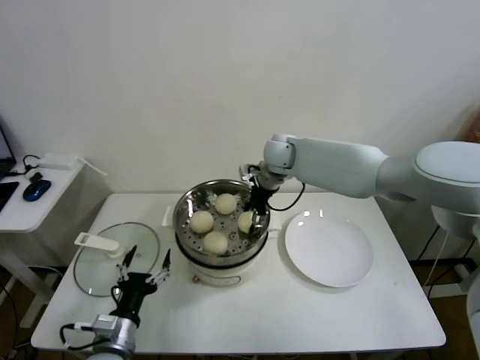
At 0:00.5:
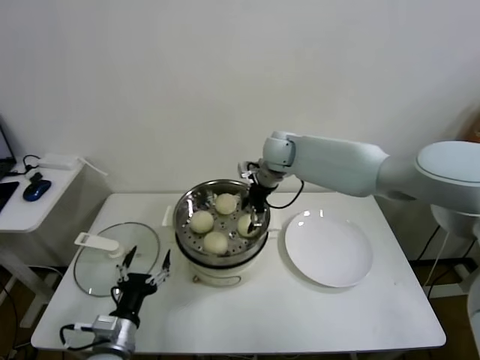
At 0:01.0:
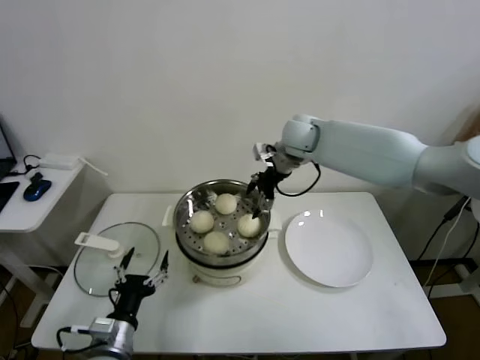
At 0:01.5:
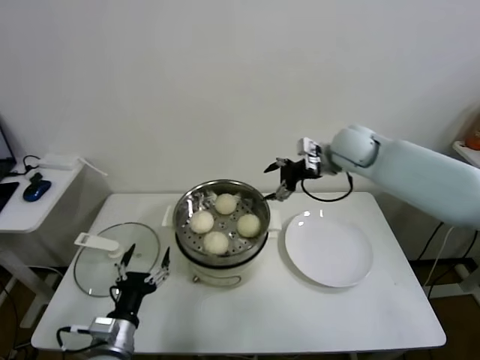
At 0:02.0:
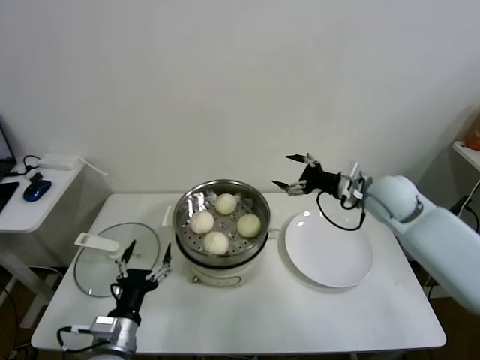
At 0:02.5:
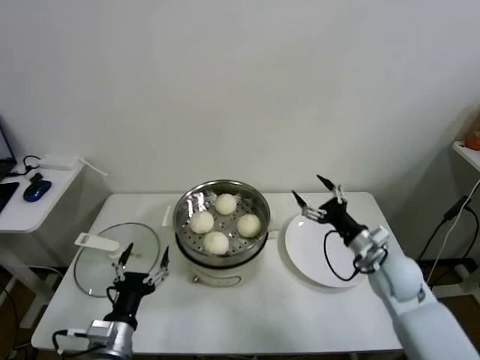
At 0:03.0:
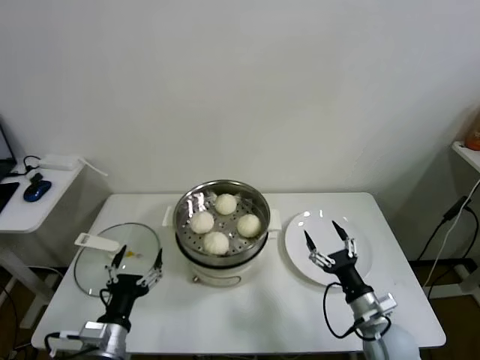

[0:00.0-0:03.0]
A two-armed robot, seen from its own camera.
Task of the whole recording: take steamed baozi put them in steamer.
0:00.0 to 0:01.5: The right gripper heads to the right, covering roughly 15 cm, and opens its fingers.
0:01.5 to 0:03.0: The right gripper heads backward and downward, covering approximately 40 cm.

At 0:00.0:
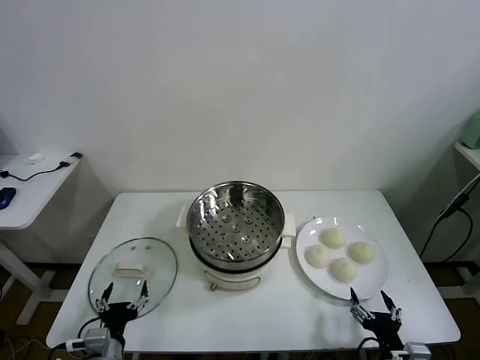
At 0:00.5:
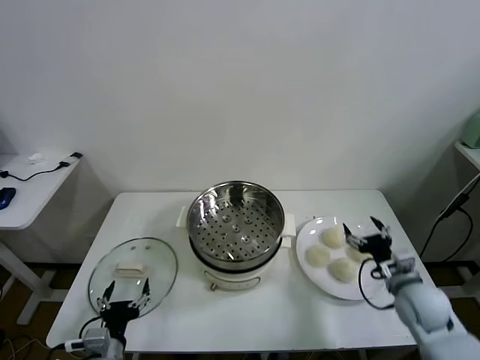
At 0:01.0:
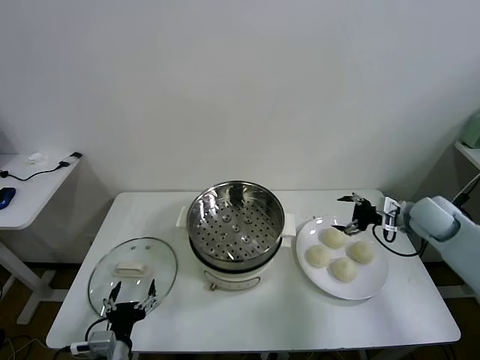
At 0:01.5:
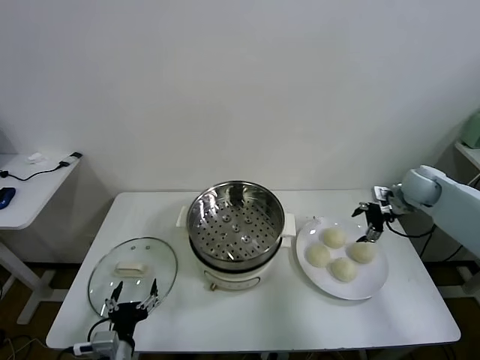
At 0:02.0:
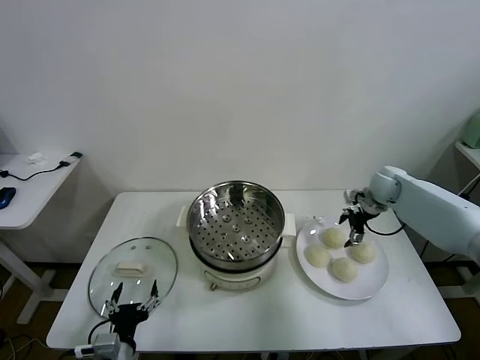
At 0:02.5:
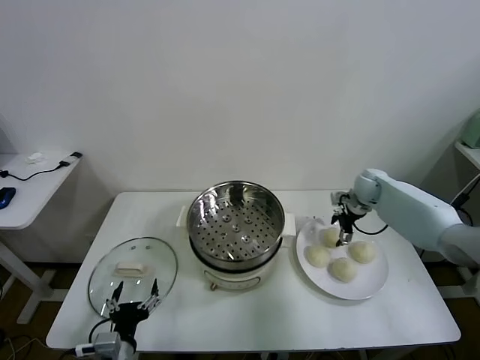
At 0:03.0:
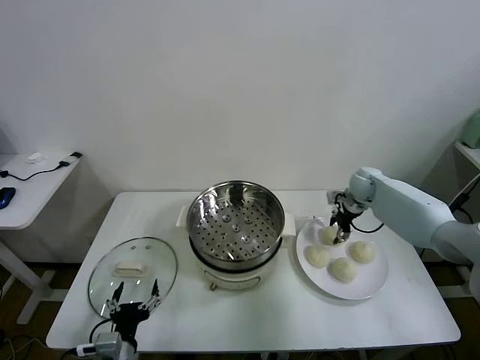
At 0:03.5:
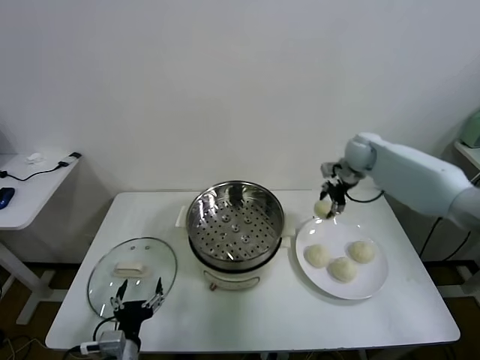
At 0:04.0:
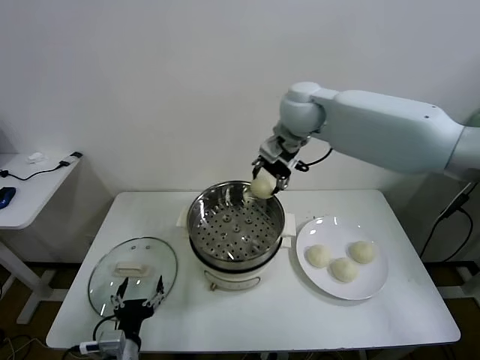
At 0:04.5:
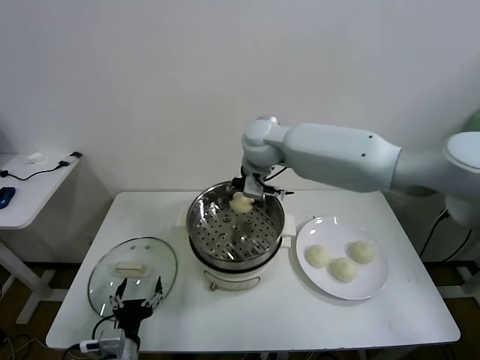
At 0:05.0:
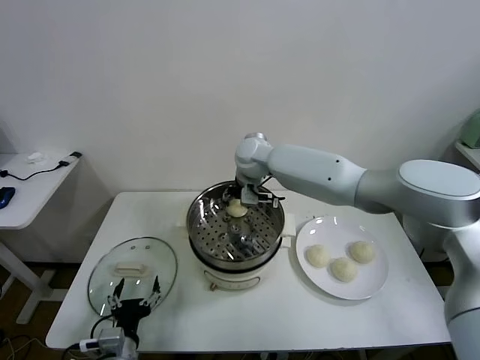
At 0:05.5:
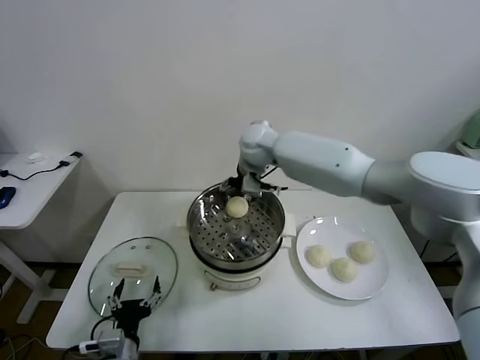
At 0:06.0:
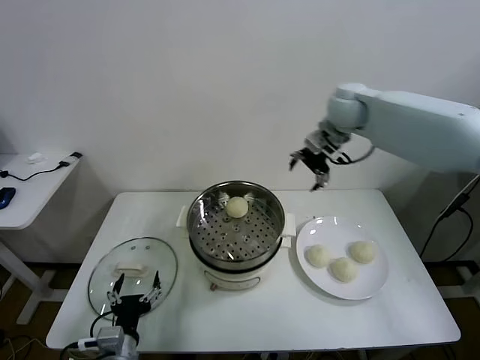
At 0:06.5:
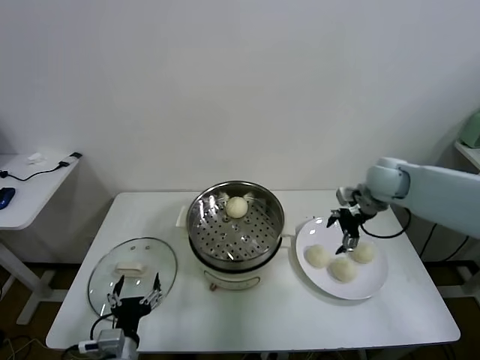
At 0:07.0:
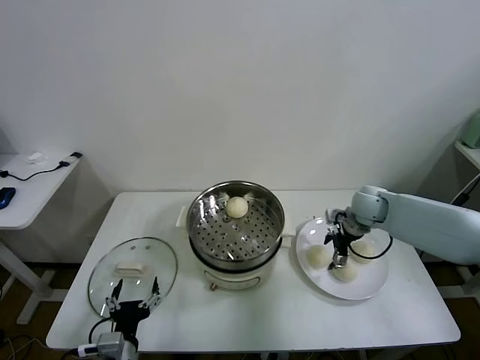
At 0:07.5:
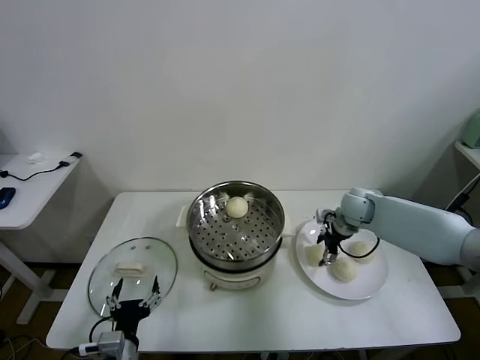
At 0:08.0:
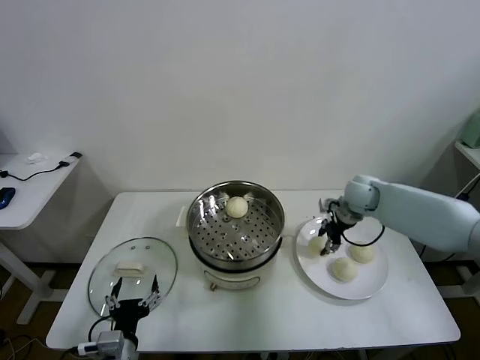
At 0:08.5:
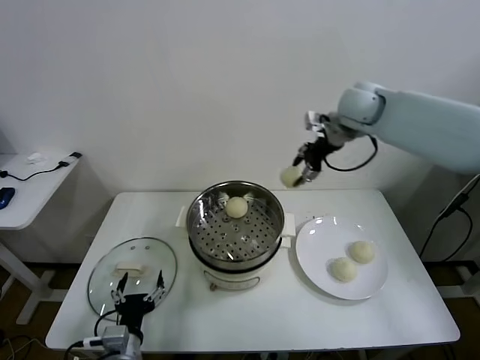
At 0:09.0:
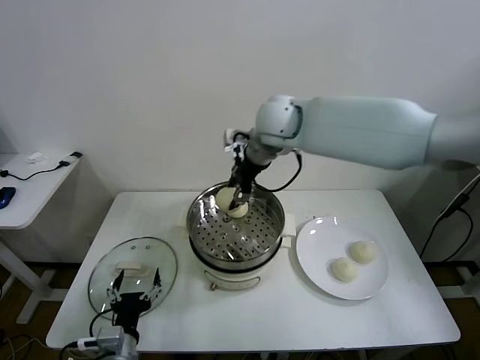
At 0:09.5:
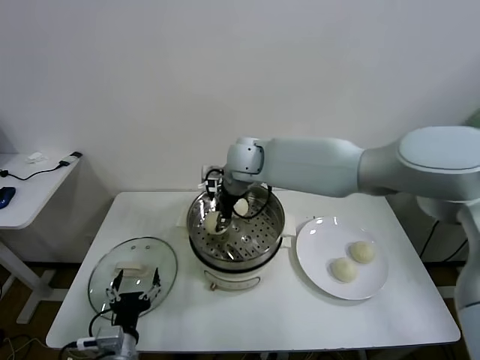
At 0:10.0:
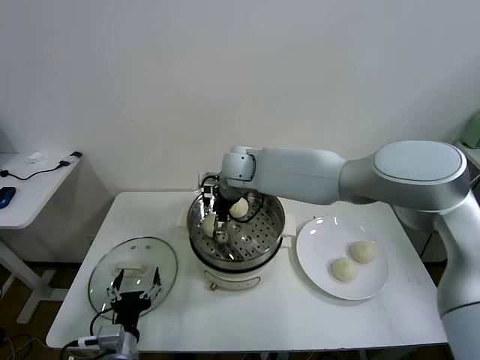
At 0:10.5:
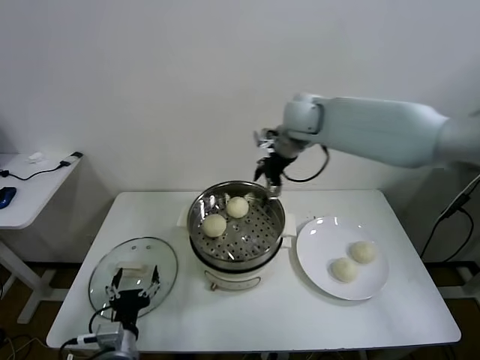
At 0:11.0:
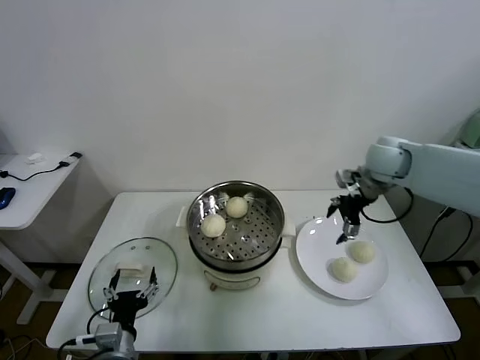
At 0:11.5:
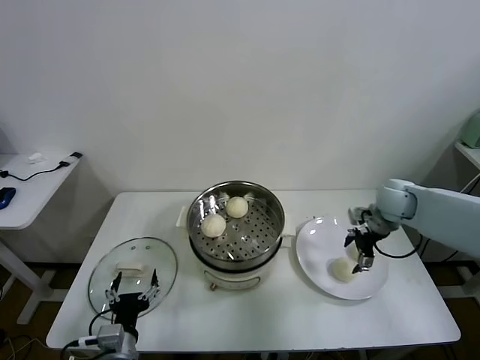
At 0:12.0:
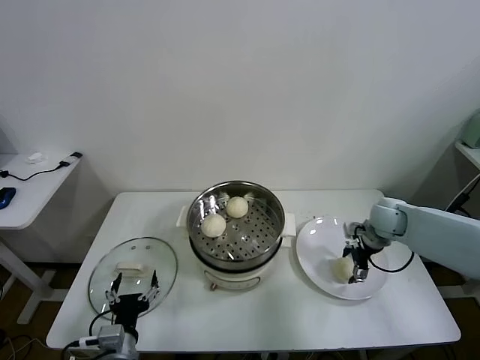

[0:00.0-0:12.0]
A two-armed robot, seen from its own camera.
Task of the whole recording: take steamed baozi put them in steamer.
Step, 0:00.0 to 0:02.5: Grasp the baozi in the plate with right gripper.
Step, 0:03.5 to 0:05.0: Place the baozi on the steamer with right gripper.
Step, 0:05.5 to 0:07.5: Grasp the baozi in the plate with right gripper.
Step, 0:08.0 to 0:10.0: Place the baozi on the steamer with right gripper.
0:02.0 to 0:04.0: The right gripper goes approximately 35 cm to the left and upward, and closes its fingers.
0:04.0 to 0:06.0: The right gripper is displaced to the right by some 15 cm, and opens.
0:06.0 to 0:08.0: The right gripper shifts approximately 20 cm downward, and closes.
0:08.0 to 0:10.0: The right gripper goes about 30 cm to the left, and opens up.
0:10.0 to 0:12.0: The right gripper moves to the right, about 35 cm.

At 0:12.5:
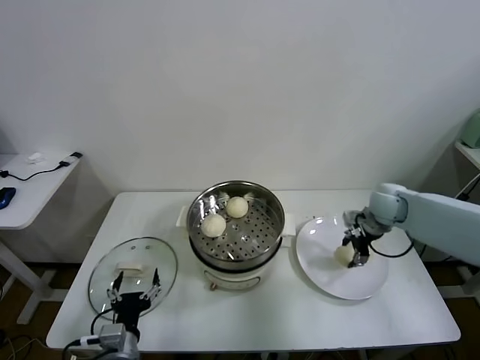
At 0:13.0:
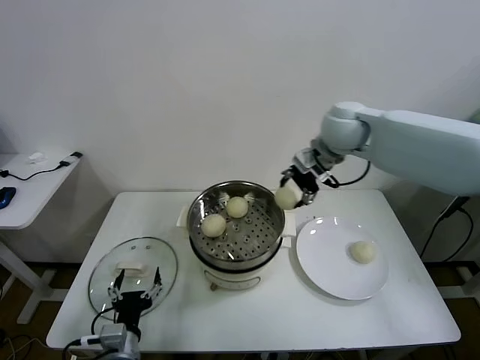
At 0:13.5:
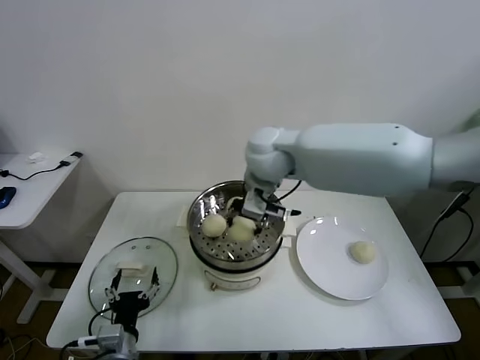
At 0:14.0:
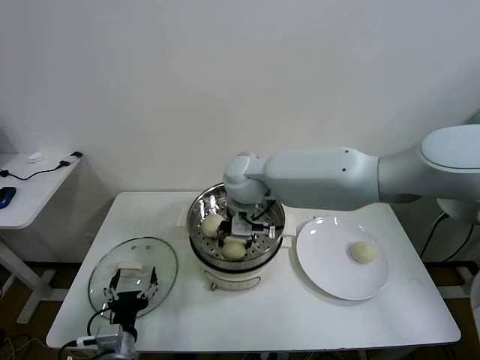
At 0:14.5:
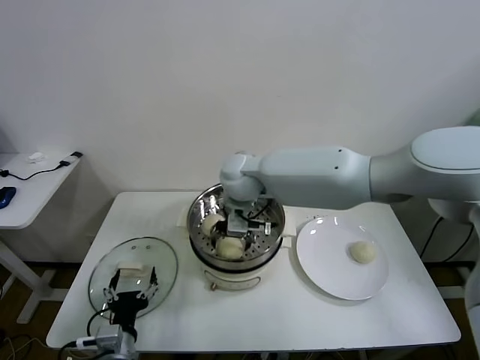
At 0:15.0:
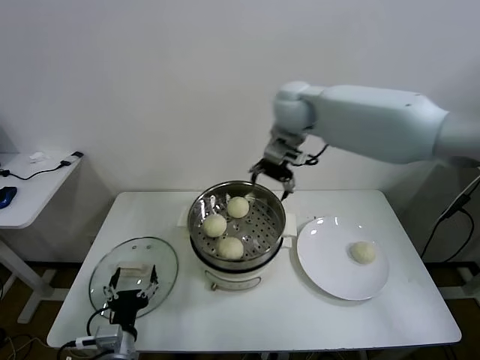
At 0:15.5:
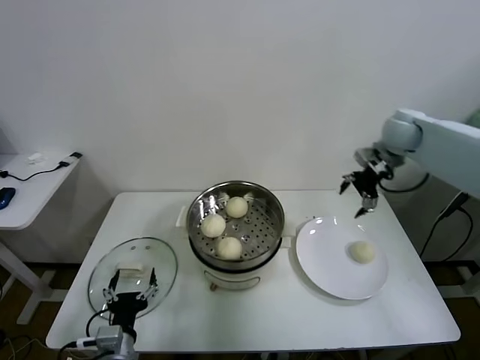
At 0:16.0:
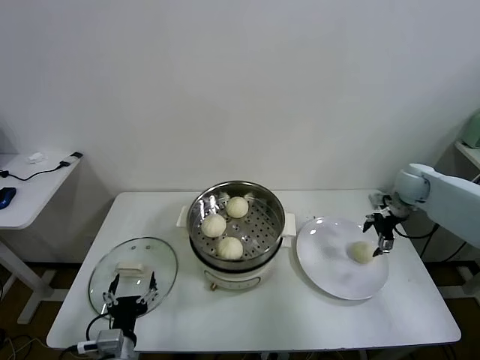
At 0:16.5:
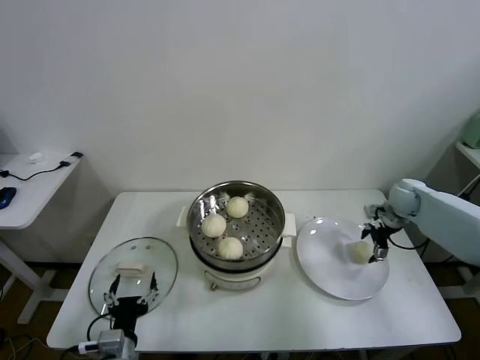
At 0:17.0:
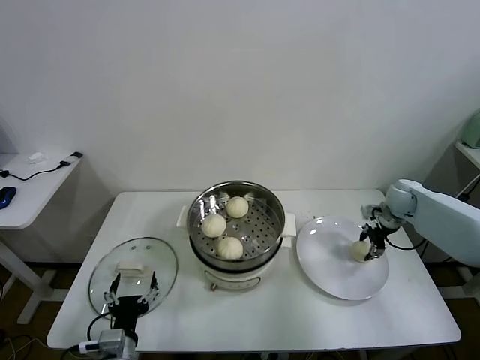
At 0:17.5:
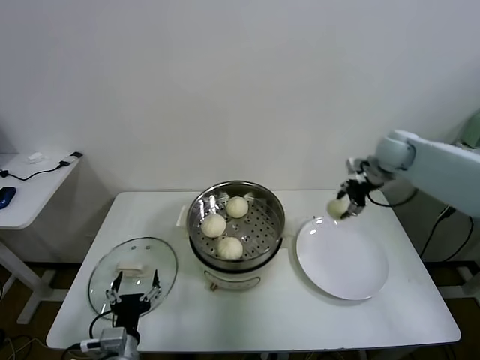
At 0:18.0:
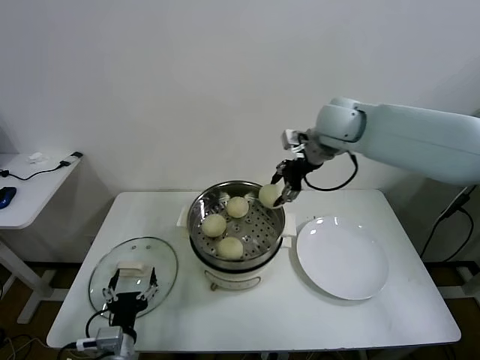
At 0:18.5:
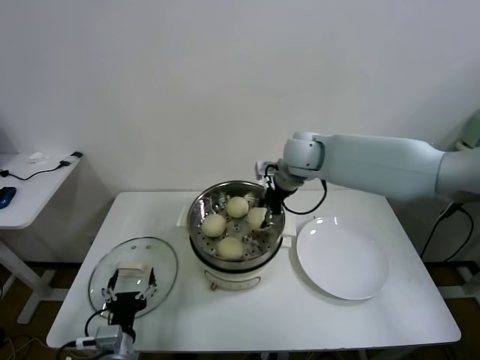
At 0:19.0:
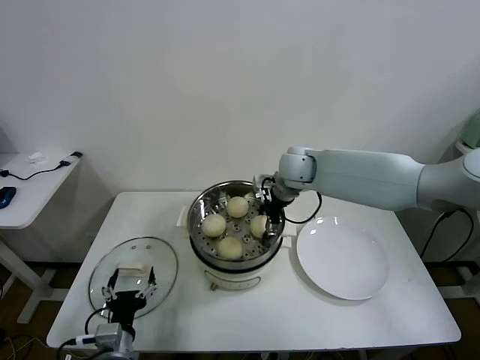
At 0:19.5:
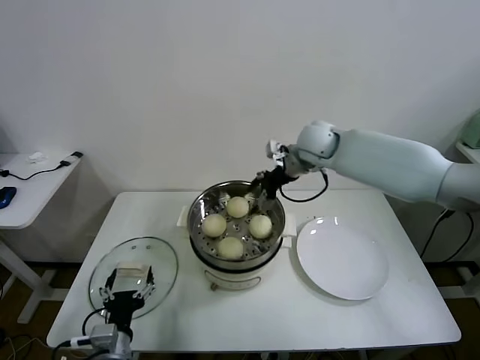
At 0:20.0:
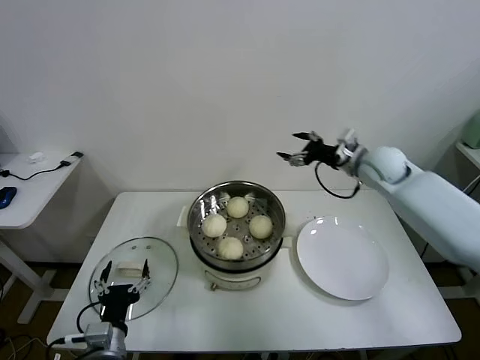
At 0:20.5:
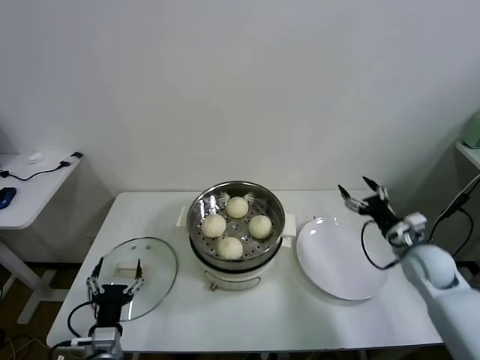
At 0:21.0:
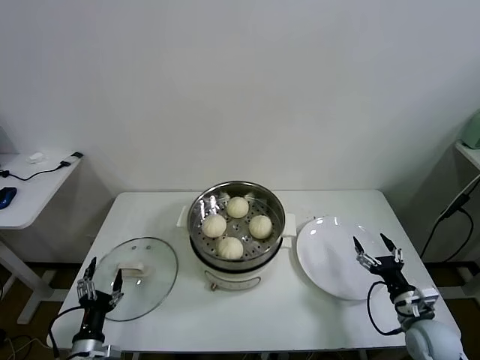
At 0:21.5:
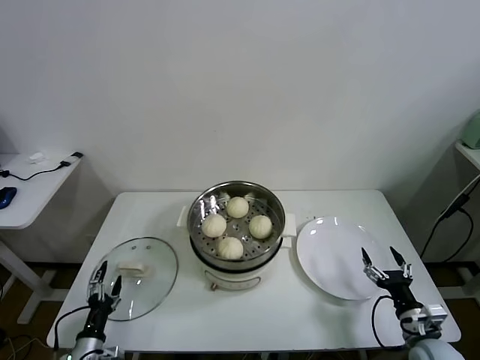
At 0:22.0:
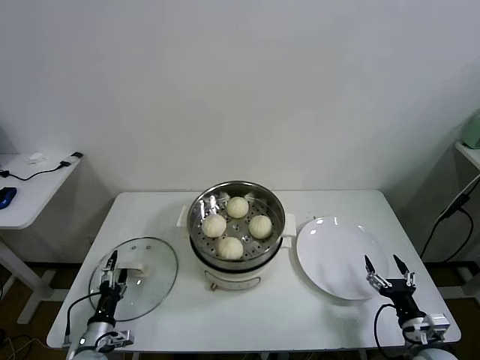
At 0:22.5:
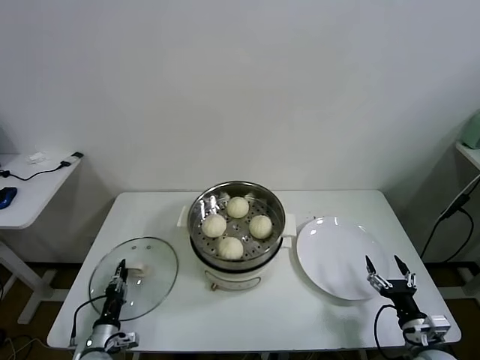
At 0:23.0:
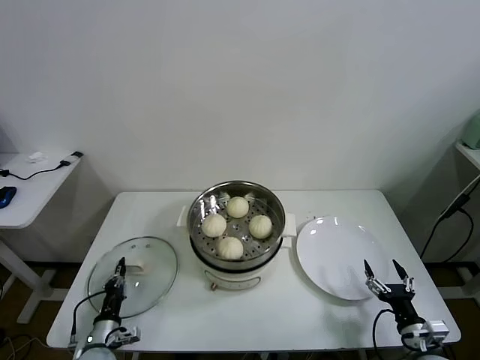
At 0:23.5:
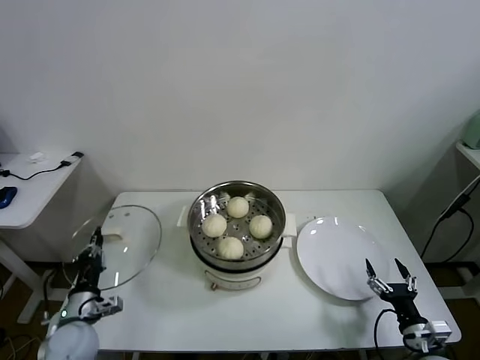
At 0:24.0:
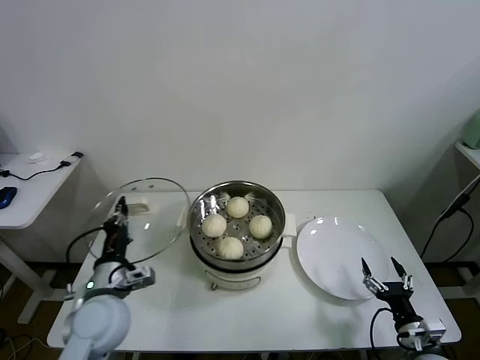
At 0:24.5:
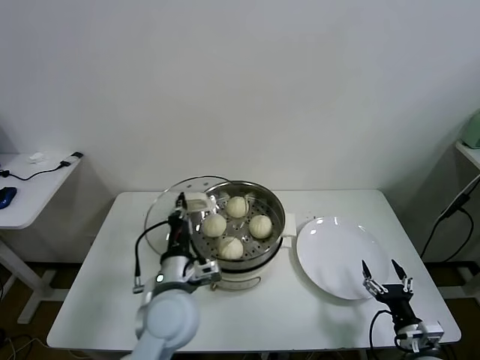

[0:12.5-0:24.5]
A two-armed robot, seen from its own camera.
Task of the whole recording: take steamed baozi put them in steamer.
Step, 0:12.5 to 0:14.5: Place the baozi on the steamer with right gripper.
Step, 0:15.0 to 0:16.5: Grasp the baozi in the plate with right gripper.
Step, 0:17.5 to 0:19.0: Place the baozi on the steamer with right gripper.
Step, 0:19.5 to 0:22.5: Grasp the pot lid with left gripper.
0:12.5 to 0:14.5: The right gripper is displaced to the left by about 35 cm, and opens up.
0:14.5 to 0:16.5: The right gripper moves to the right, some 40 cm.
0:16.5 to 0:18.5: The right gripper is displaced to the left and upward by about 35 cm, and closes up.
0:18.5 to 0:20.5: The right gripper heads to the right, downward and backward, covering about 35 cm, and opens its fingers.
0:20.5 to 0:22.5: The right gripper heads backward and downward, covering about 25 cm. Meanwhile the left gripper moves downward and to the left, roughly 15 cm, and closes its fingers.
0:22.5 to 0:24.5: The left gripper is displaced upward and to the right by about 35 cm, and closes up.
